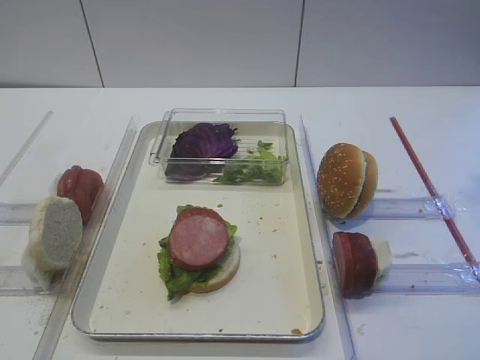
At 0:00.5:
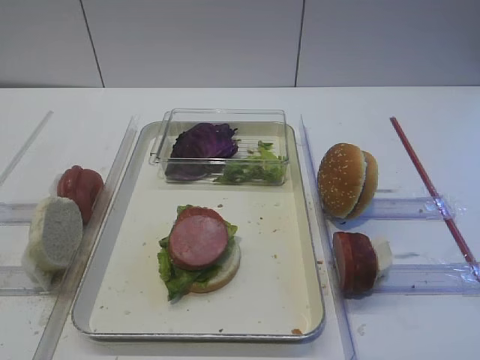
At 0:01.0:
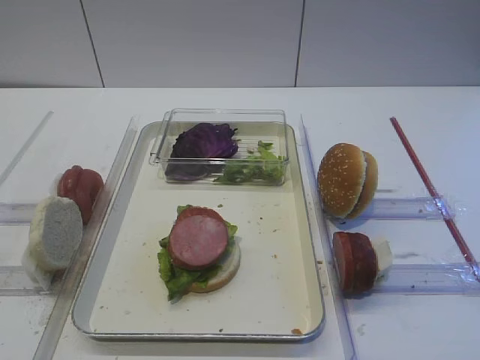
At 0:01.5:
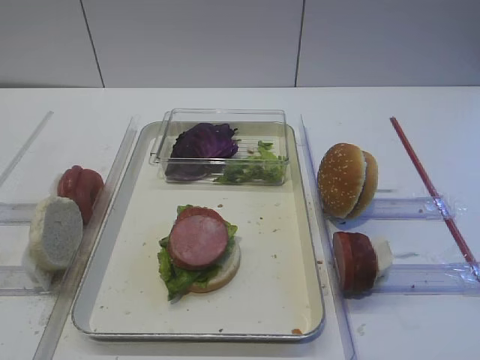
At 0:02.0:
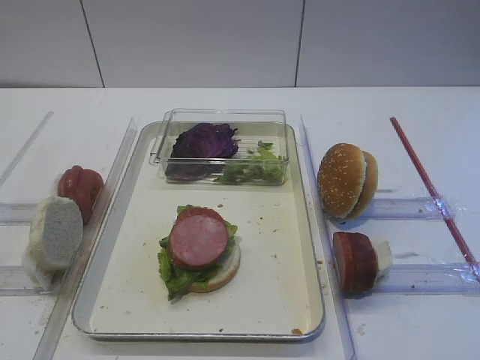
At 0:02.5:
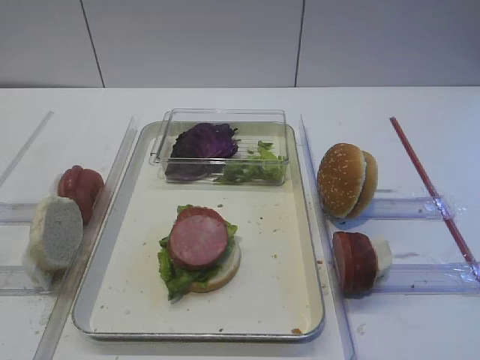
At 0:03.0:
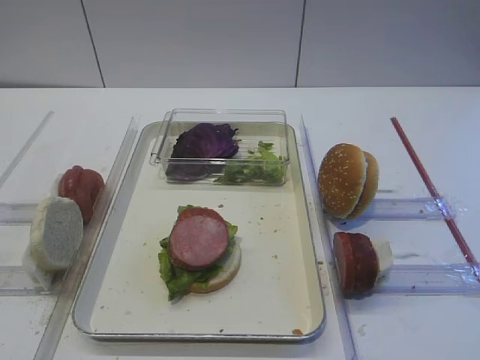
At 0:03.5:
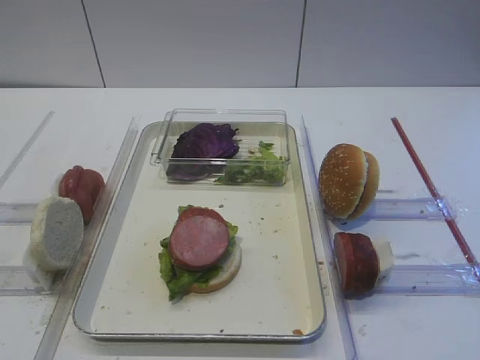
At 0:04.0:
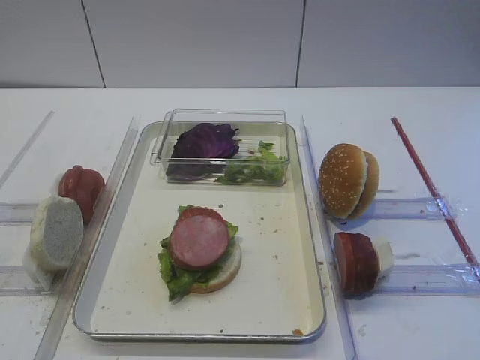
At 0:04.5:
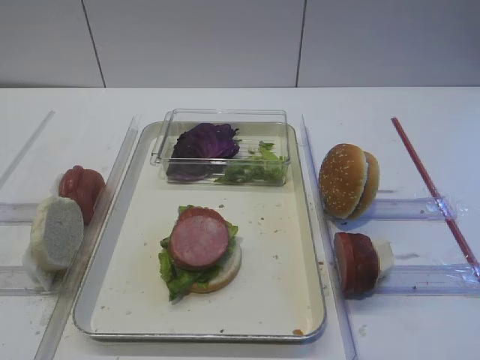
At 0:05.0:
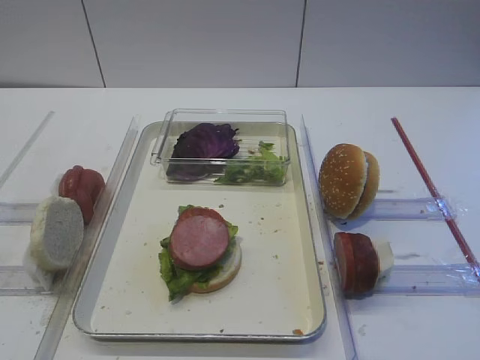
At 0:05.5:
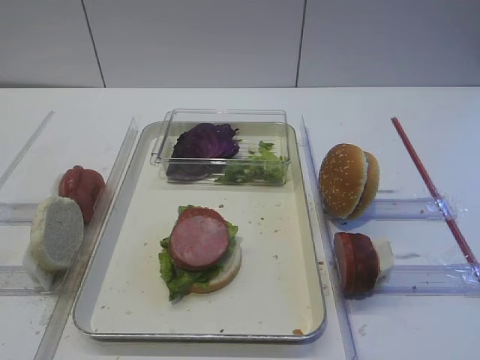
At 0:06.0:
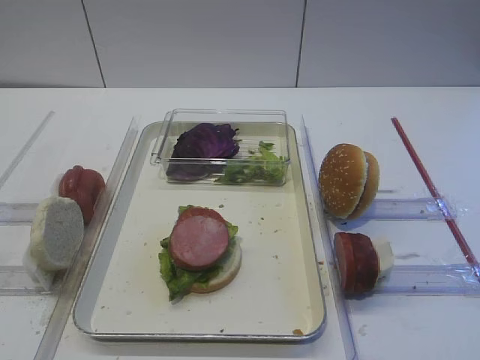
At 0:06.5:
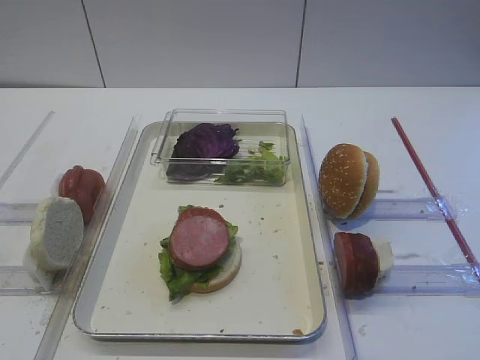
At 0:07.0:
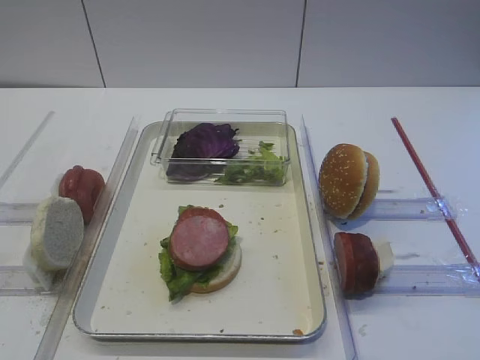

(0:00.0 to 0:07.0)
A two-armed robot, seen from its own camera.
0:03.5 - 0:07.0: The two grippers keep their place.

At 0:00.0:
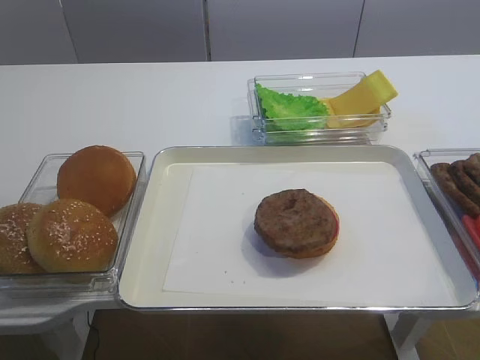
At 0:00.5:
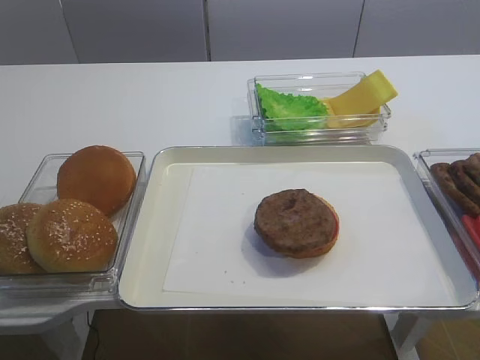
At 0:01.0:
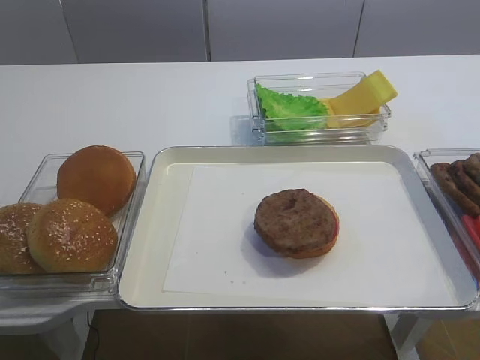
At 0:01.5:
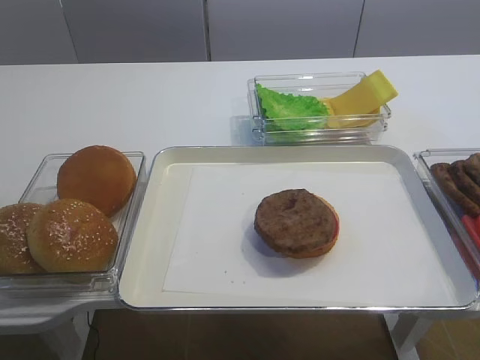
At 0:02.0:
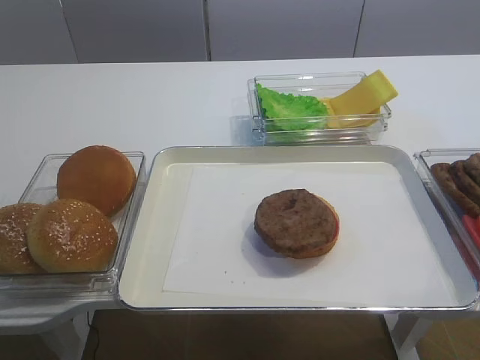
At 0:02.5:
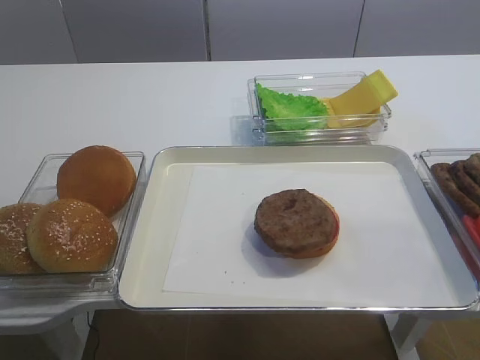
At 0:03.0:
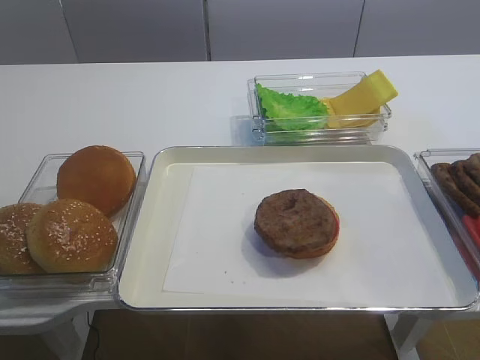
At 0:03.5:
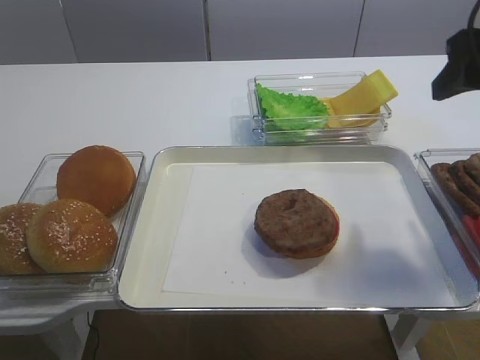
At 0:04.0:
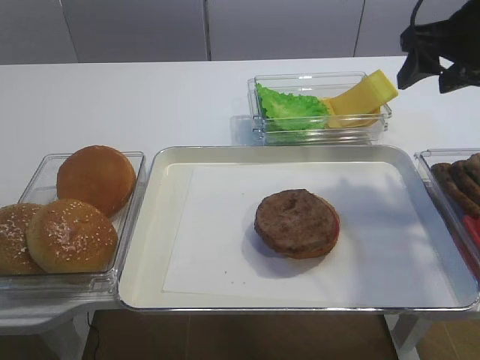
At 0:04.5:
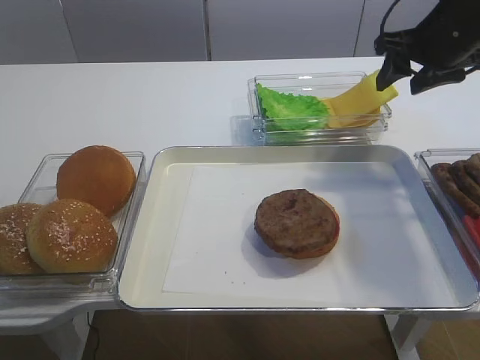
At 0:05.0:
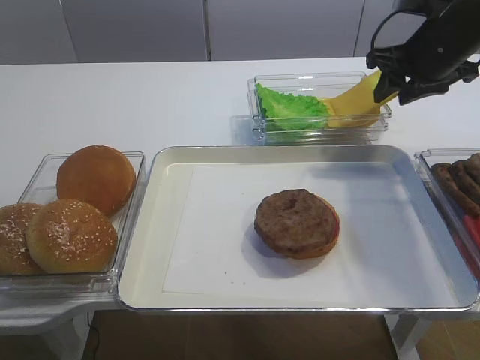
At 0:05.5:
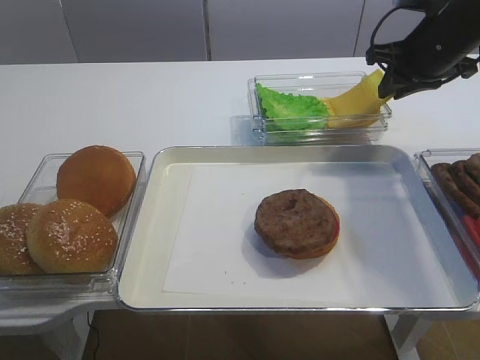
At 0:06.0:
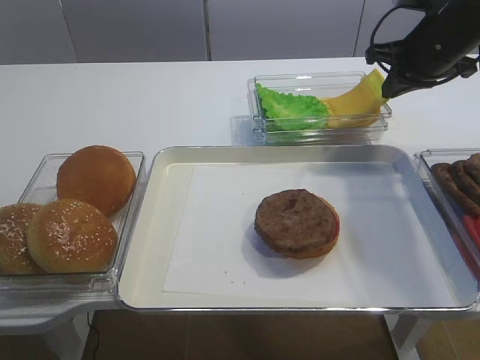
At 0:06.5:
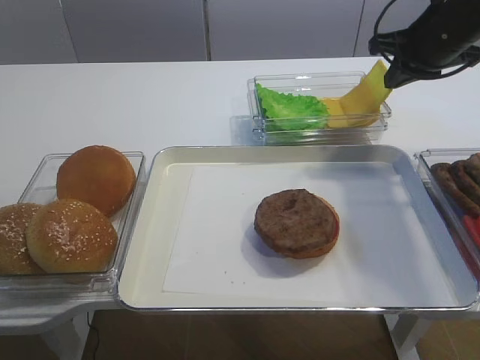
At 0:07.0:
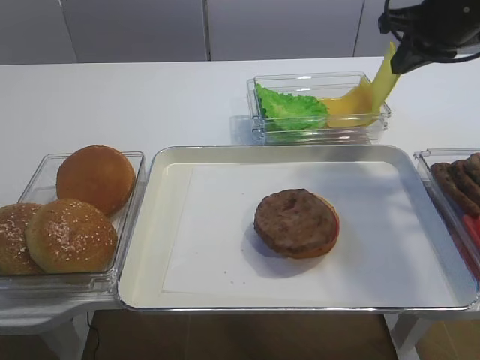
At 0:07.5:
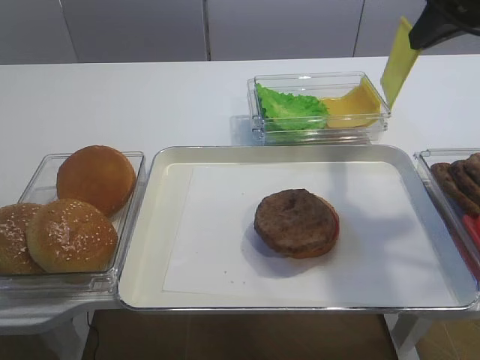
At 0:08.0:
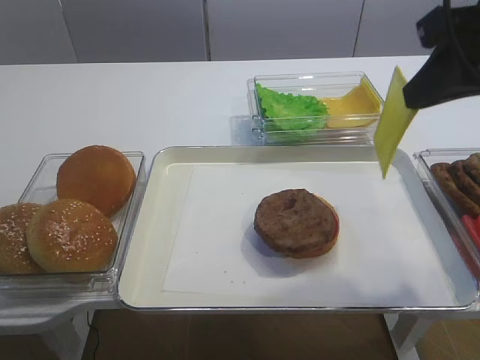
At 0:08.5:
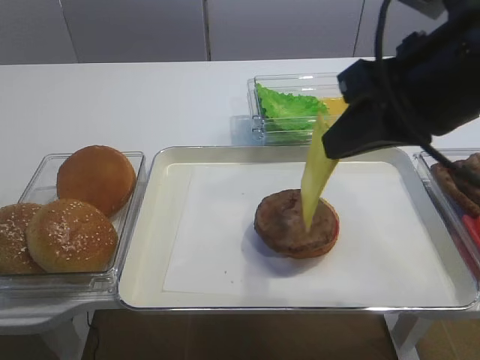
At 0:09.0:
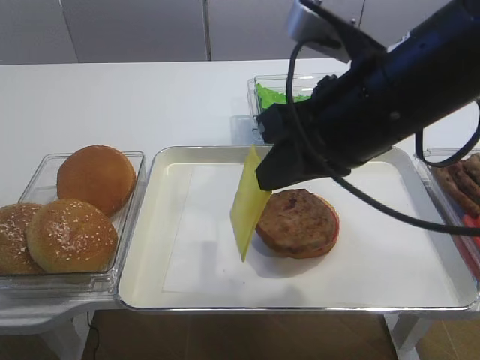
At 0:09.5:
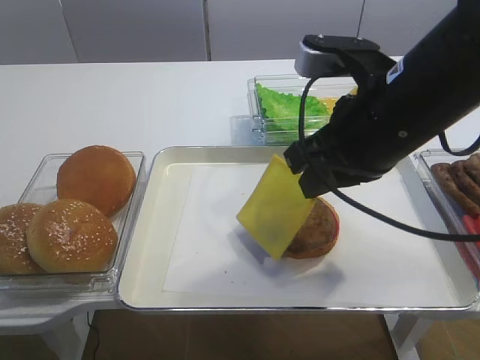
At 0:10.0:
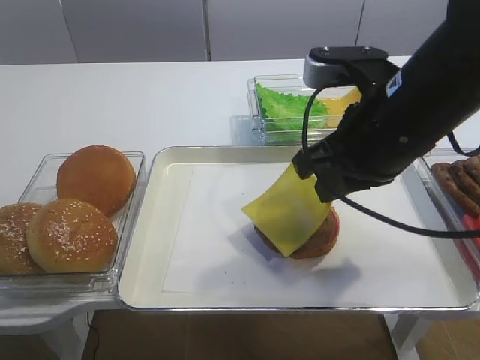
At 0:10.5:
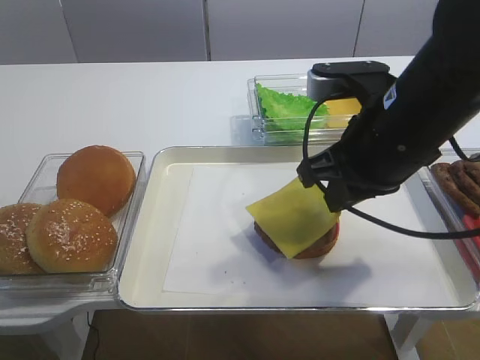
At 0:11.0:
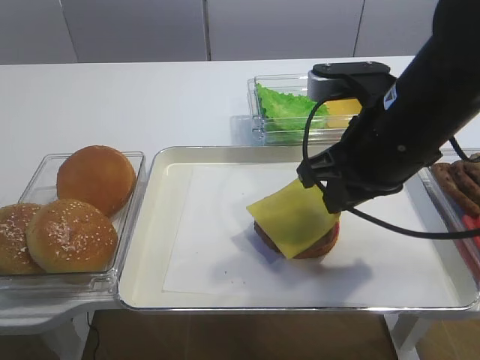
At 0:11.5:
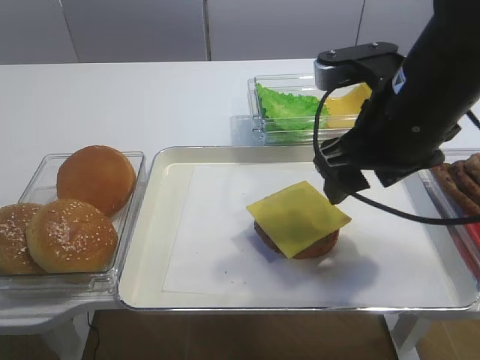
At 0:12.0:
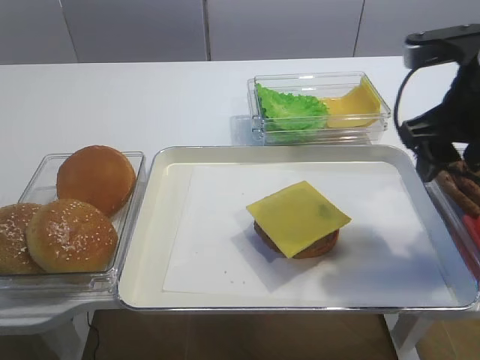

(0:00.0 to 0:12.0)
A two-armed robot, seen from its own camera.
Step, 0:00.0 - 0:07.0: Pick up the cheese slice with the right gripper.
Step, 0:08.0 - 0:11.5: Place the cheese slice on the cutlet with the right gripper.
0:02.0 - 0:04.0: The right gripper is displaced forward by about 35 cm.
0:04.0 - 0:06.0: The right gripper moves forward, approximately 10 cm, and closes its fingers.
0:06.0 - 0:08.0: The right gripper heads backward and upward, covering approximately 20 cm.
0:08.0 - 0:10.0: The right gripper moves to the left and downward, some 10 cm.
0:10.0 - 0:12.0: The right gripper travels to the right by roughly 10 cm, and opens.

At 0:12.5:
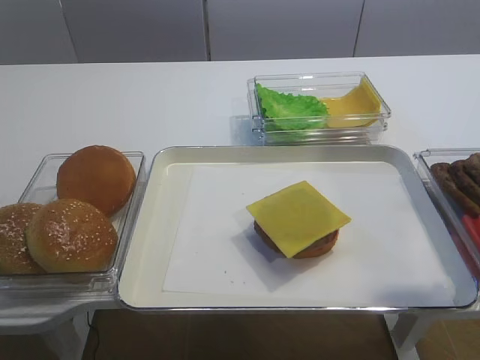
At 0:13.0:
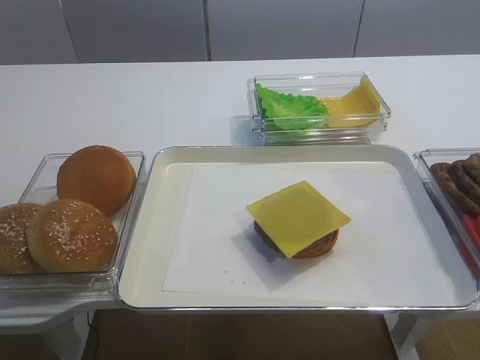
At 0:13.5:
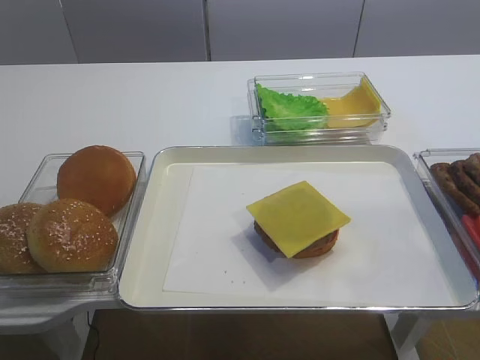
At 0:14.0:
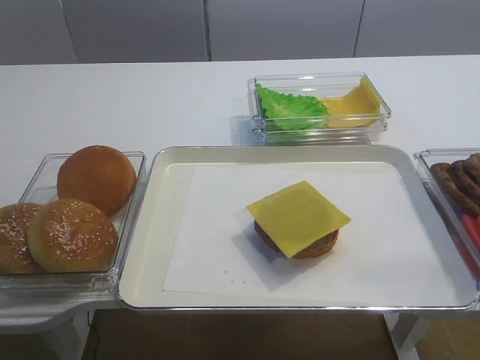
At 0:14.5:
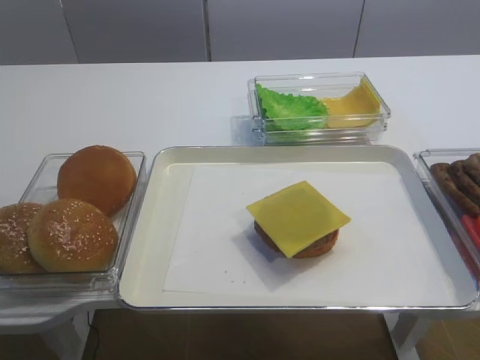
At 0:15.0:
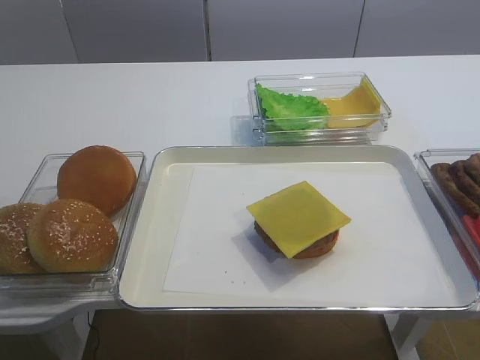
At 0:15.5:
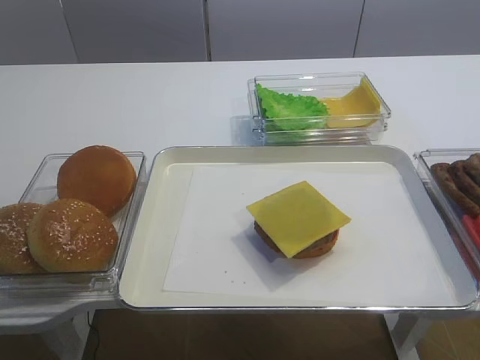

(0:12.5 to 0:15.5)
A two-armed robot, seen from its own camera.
0:12.5 - 0:14.0: The right gripper travels backward by approximately 20 cm.

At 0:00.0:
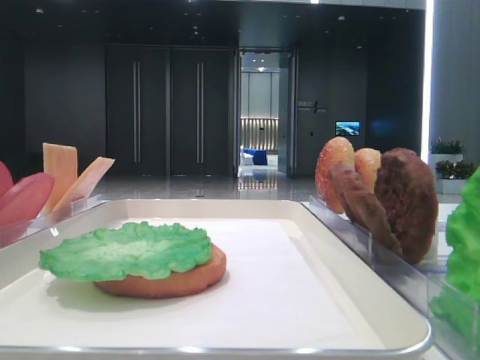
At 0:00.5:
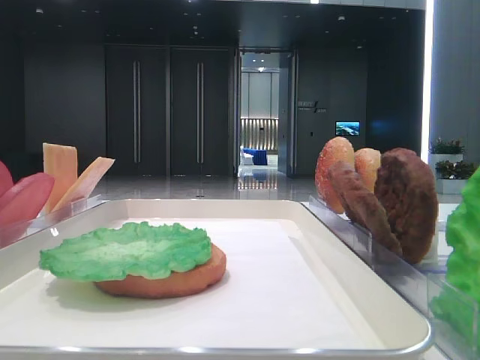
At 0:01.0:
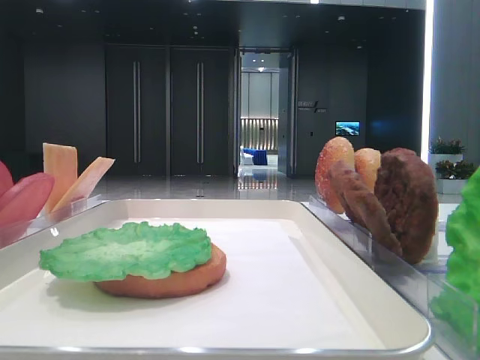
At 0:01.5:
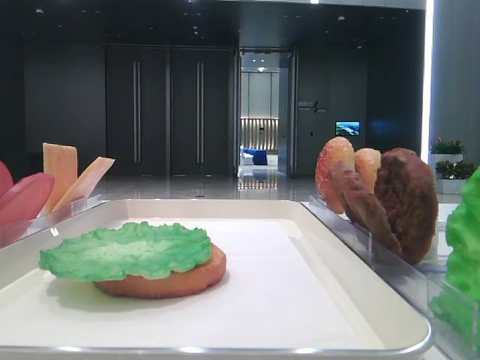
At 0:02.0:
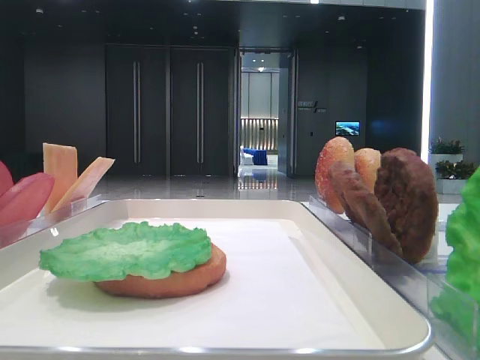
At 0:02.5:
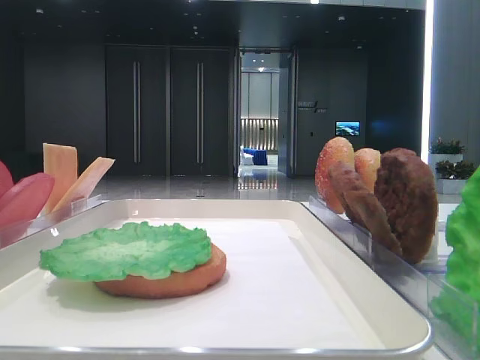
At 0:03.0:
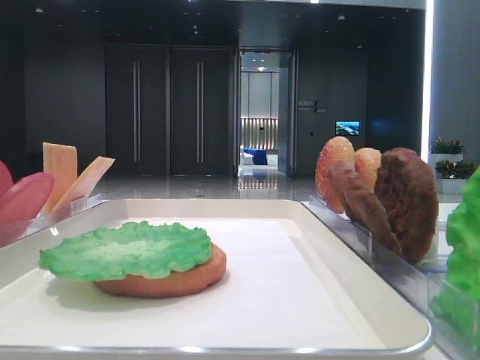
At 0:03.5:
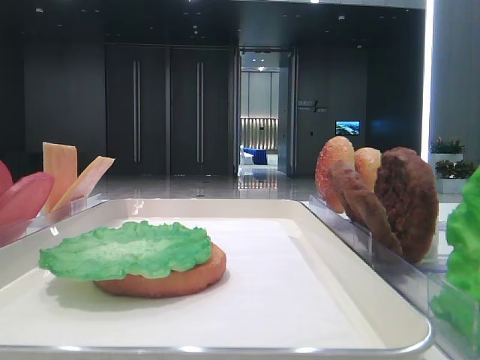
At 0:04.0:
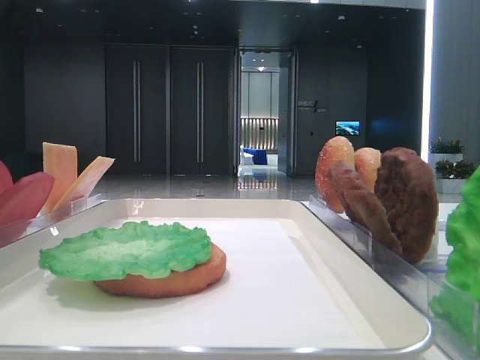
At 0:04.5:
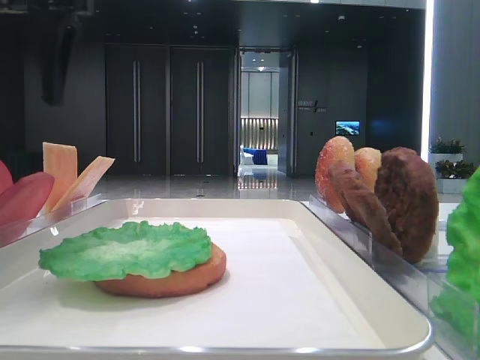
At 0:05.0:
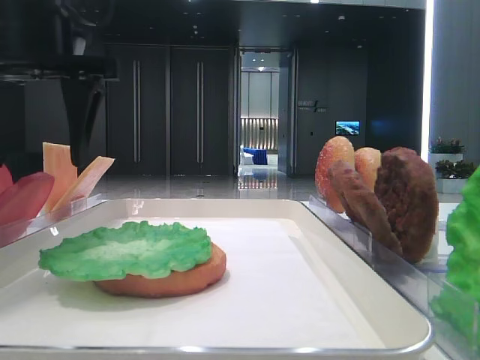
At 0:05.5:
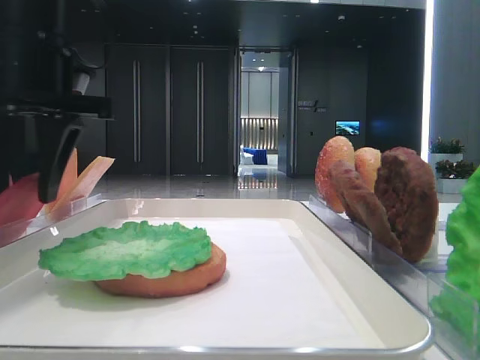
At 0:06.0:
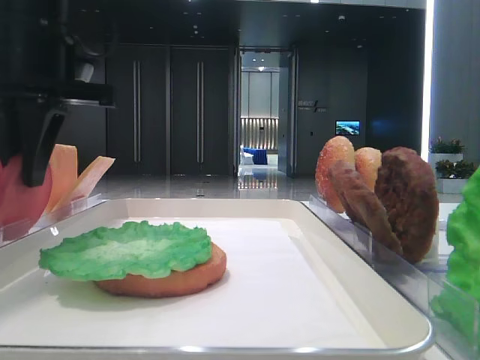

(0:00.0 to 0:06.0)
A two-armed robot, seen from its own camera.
Step, 0:00.0 - 0:06.0: Pick up the tomato slice with the left hand.
0:02.0 - 0:04.0: The left gripper heads forward, covering about 30 cm.
0:04.0 - 0:06.0: The left gripper is displaced downward and to the right by some 10 cm, and closes.
